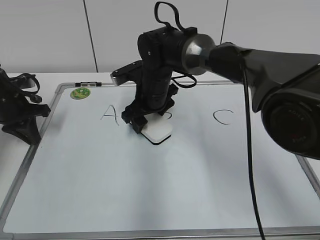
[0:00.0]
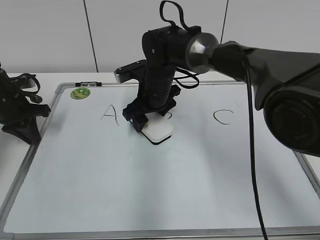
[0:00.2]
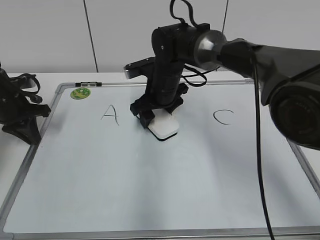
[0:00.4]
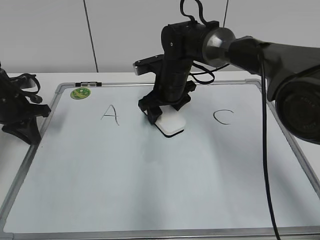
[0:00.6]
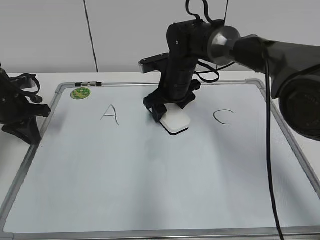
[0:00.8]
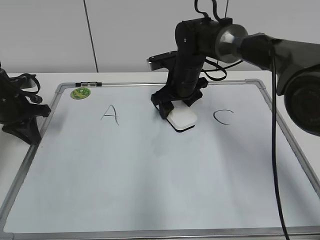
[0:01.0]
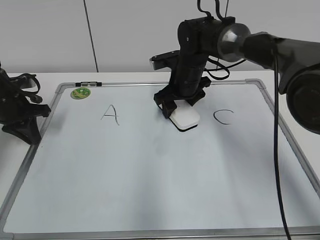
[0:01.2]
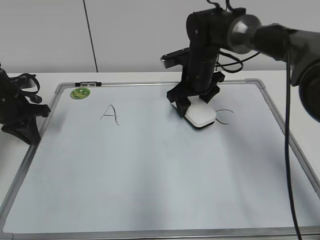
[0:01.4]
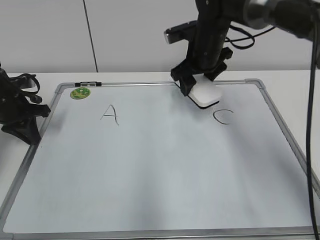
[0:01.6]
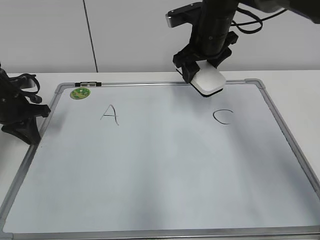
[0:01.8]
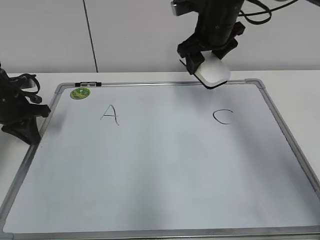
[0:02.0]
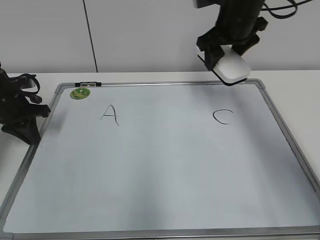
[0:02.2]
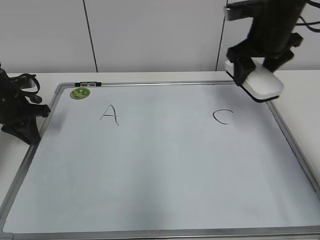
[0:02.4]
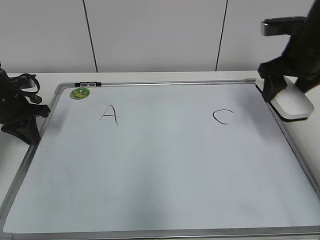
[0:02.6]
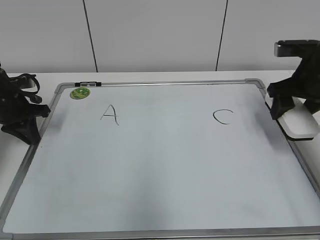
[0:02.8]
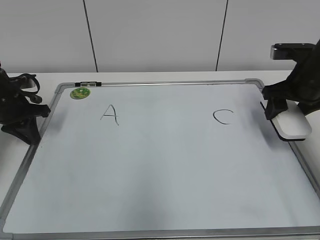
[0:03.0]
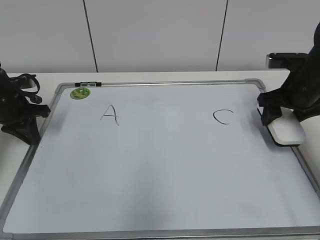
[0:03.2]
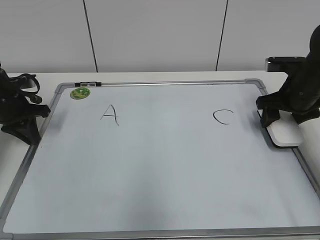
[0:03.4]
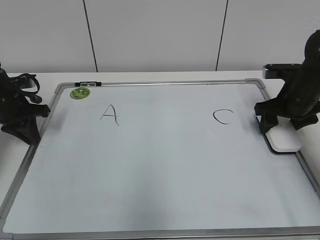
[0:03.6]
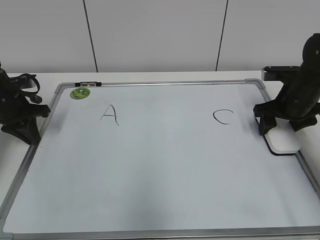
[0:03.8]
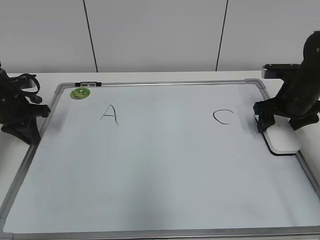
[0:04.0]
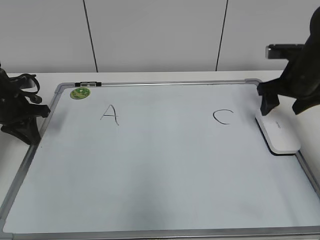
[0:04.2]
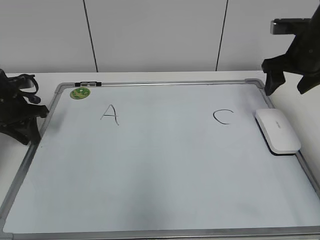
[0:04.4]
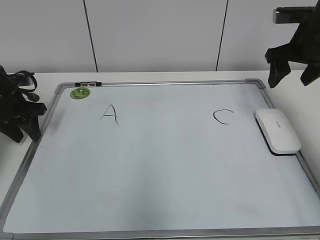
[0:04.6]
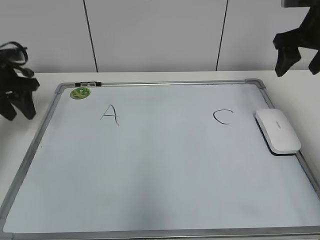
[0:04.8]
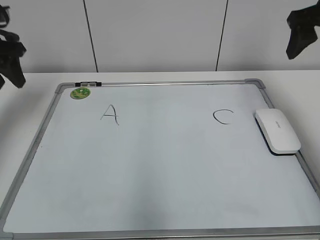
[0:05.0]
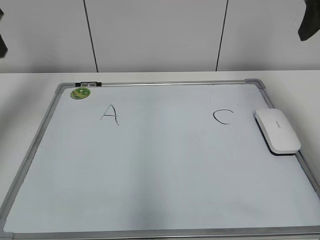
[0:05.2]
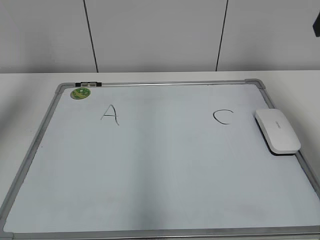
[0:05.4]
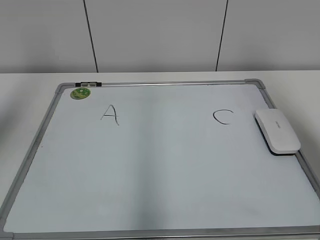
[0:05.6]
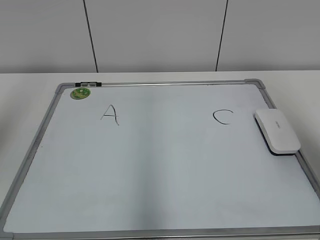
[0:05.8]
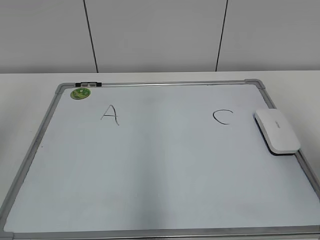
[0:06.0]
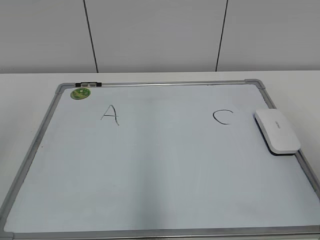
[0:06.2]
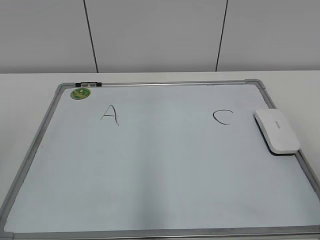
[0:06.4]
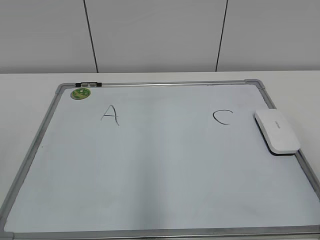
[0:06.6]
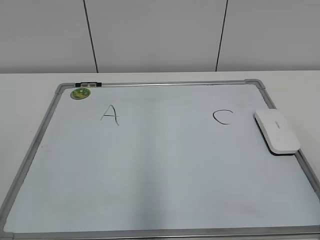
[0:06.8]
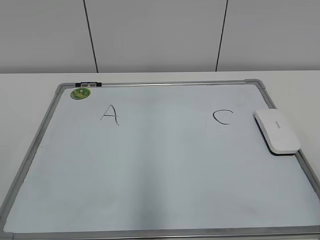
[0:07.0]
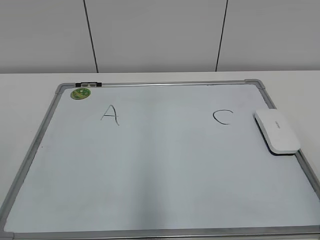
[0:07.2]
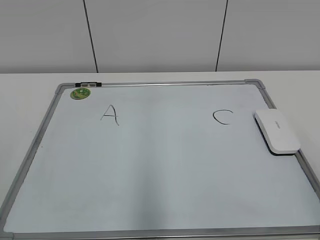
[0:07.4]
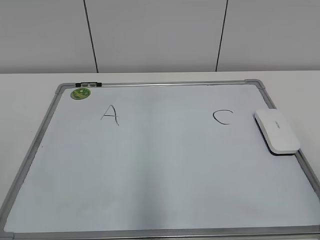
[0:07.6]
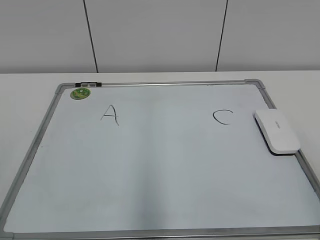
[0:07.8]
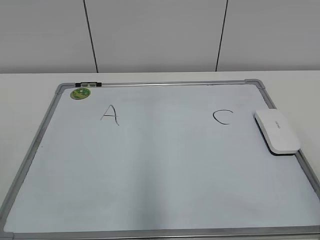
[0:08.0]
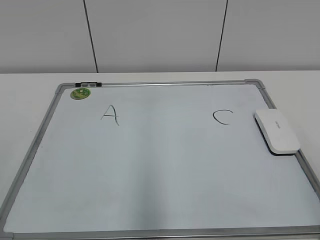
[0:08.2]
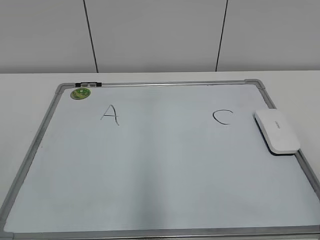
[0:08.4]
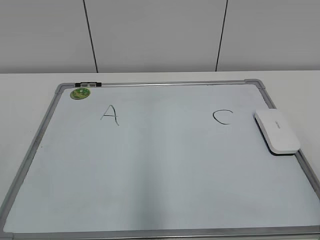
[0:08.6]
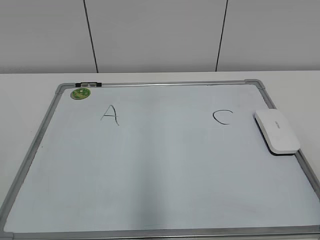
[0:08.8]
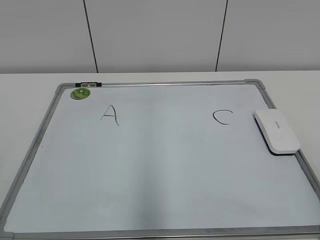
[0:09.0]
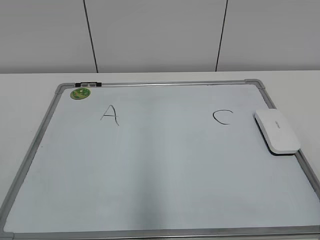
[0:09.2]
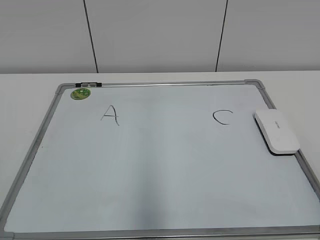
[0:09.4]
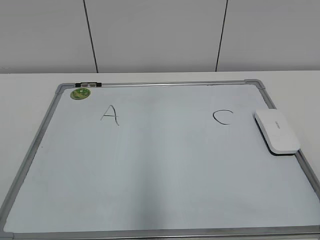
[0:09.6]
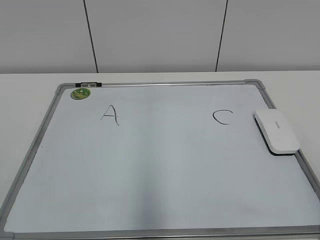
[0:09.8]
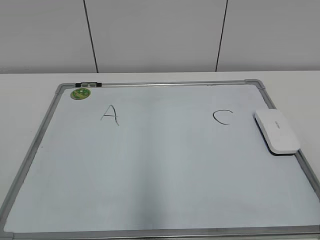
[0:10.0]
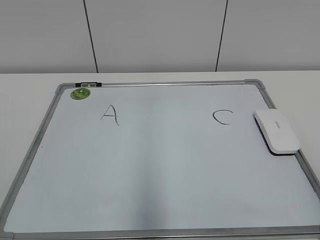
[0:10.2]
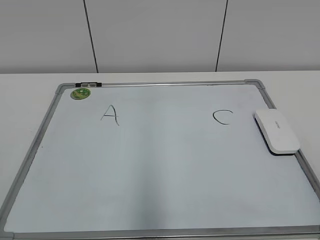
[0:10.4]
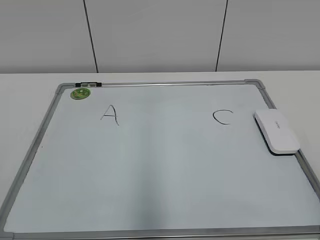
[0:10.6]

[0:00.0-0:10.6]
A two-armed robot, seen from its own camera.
Task of the whole recording: pick up the eraser on the blackboard and erase the letter "B".
Step, 0:01.4 to 0:04.0: Put down the eraser with your right hand.
0:00.0 to 0:01.6: The right gripper travels to the right and upward by about 15 cm.
0:01.6 to 0:03.0: The right gripper heads to the right and backward, covering roughly 20 cm.
0:03.0 to 0:04.6: The left gripper opens up. The right gripper travels upward by roughly 5 cm.
0:04.6 to 0:06.0: The left gripper heads upward and backward, covering approximately 40 cm. Meanwhile the right gripper is displaced backward and upward by roughly 30 cm.
0:06.0 to 0:07.6: The right gripper moves downward and backward, some 20 cm.

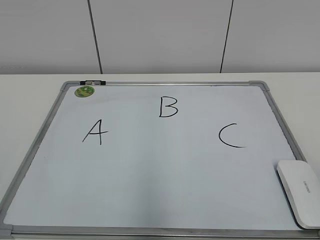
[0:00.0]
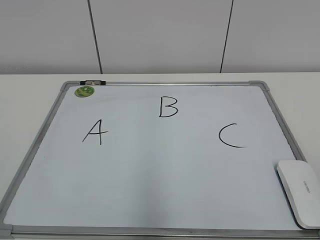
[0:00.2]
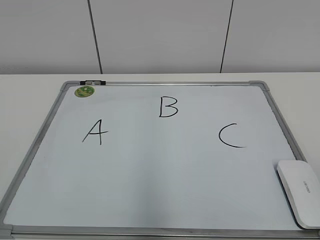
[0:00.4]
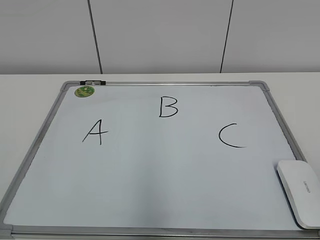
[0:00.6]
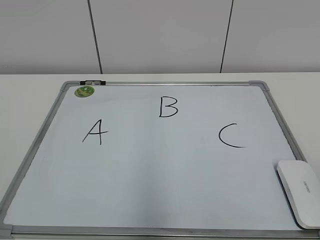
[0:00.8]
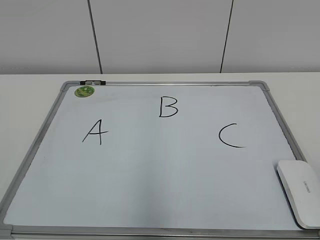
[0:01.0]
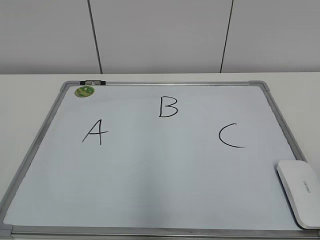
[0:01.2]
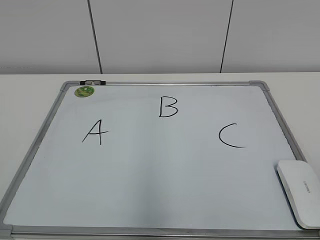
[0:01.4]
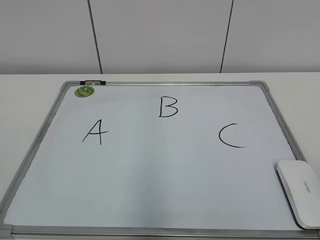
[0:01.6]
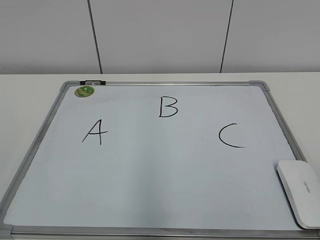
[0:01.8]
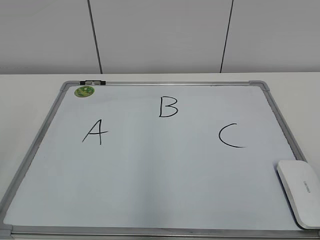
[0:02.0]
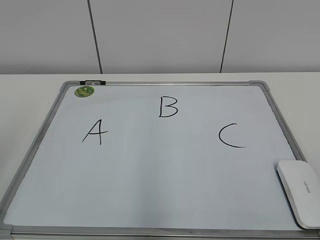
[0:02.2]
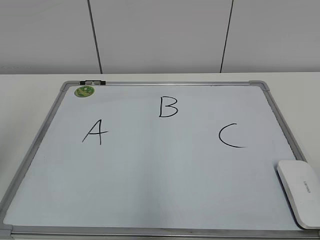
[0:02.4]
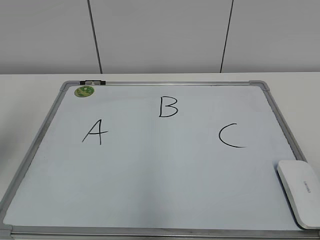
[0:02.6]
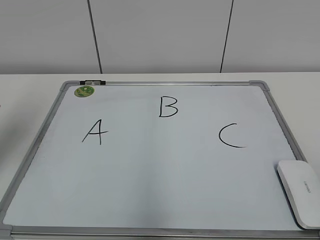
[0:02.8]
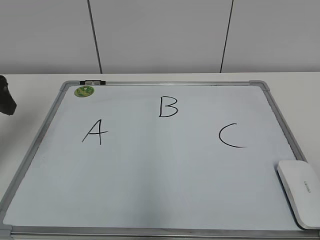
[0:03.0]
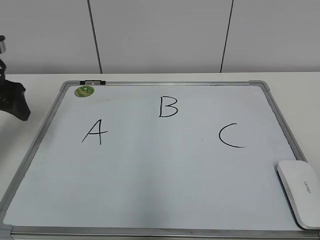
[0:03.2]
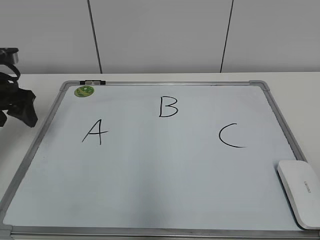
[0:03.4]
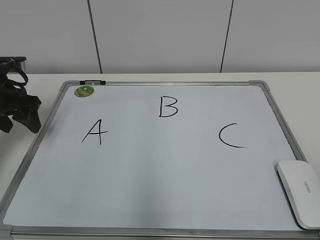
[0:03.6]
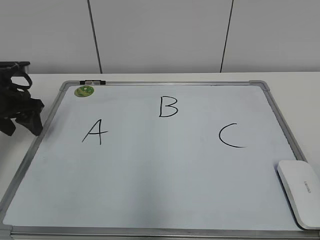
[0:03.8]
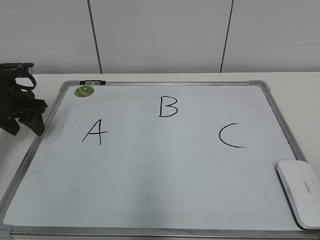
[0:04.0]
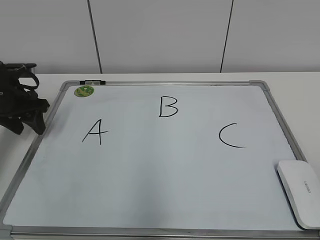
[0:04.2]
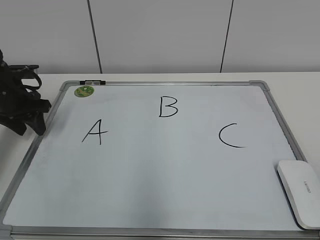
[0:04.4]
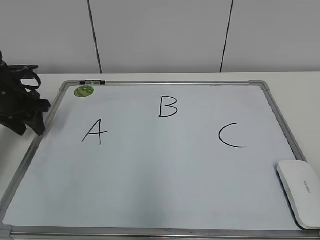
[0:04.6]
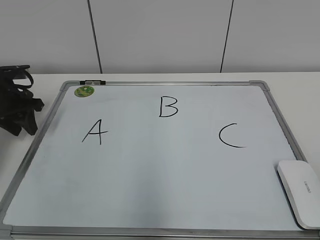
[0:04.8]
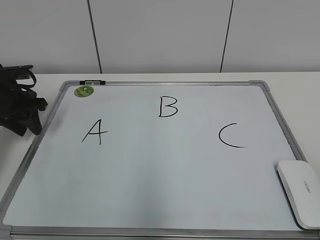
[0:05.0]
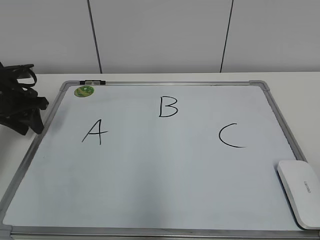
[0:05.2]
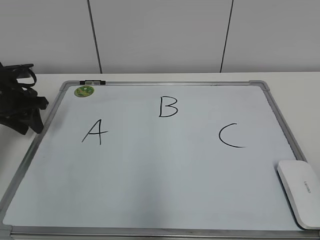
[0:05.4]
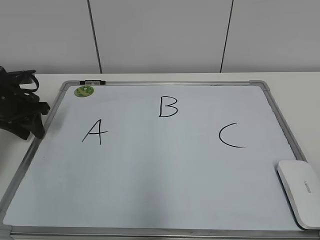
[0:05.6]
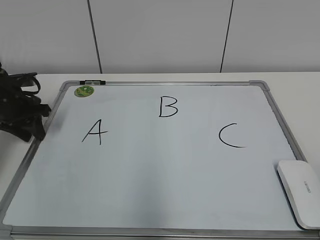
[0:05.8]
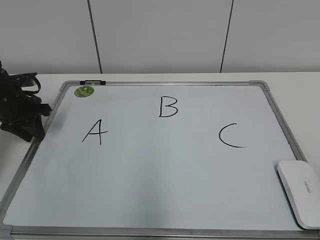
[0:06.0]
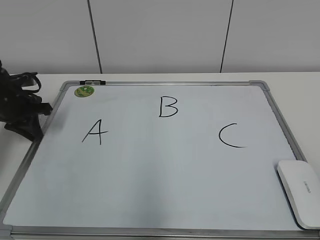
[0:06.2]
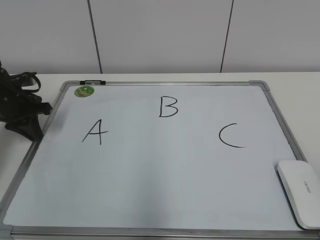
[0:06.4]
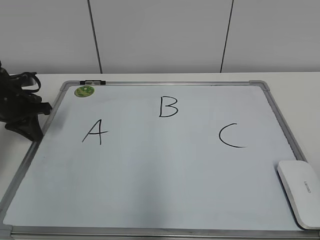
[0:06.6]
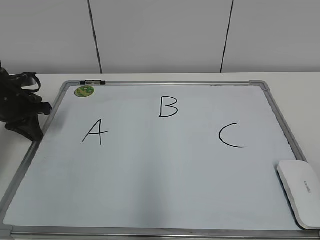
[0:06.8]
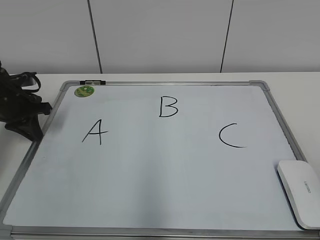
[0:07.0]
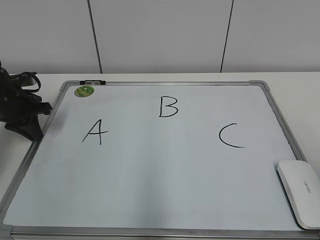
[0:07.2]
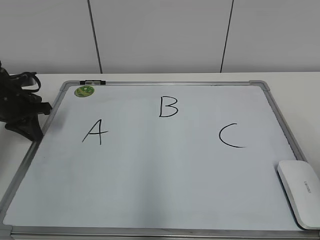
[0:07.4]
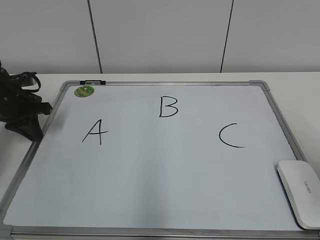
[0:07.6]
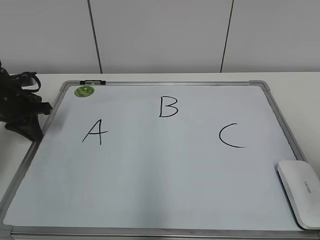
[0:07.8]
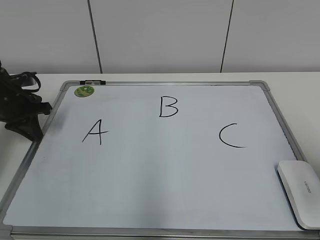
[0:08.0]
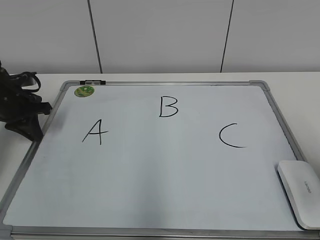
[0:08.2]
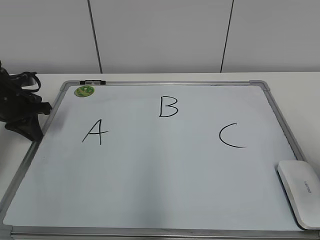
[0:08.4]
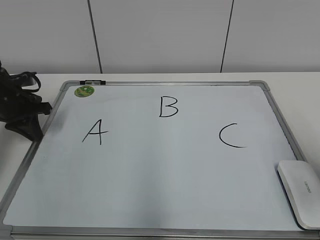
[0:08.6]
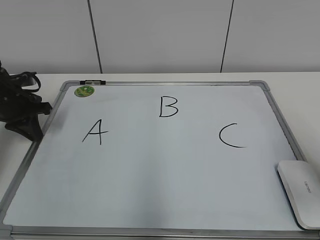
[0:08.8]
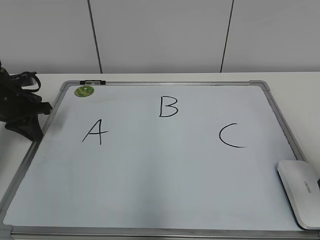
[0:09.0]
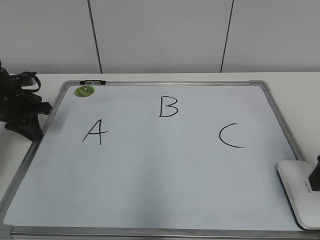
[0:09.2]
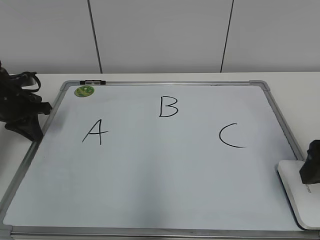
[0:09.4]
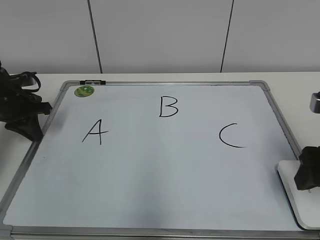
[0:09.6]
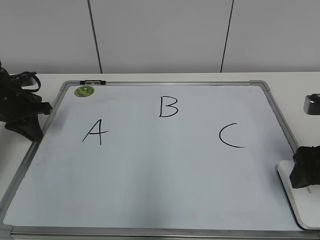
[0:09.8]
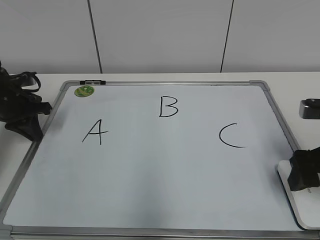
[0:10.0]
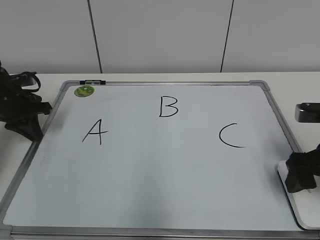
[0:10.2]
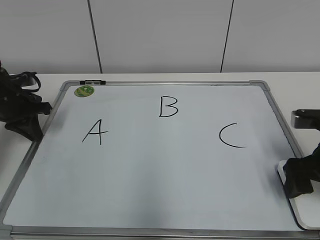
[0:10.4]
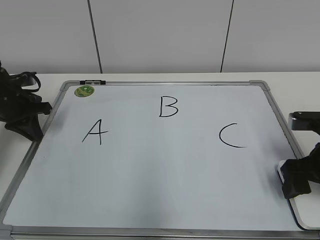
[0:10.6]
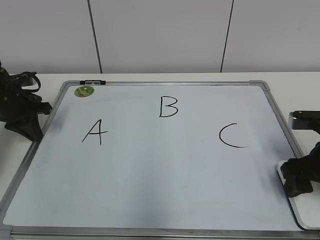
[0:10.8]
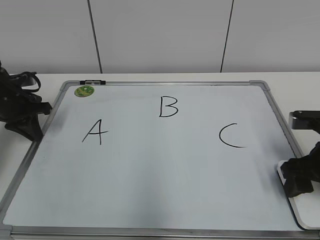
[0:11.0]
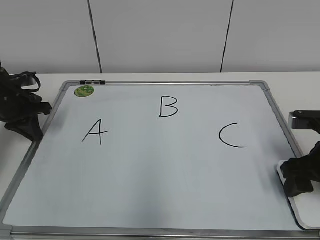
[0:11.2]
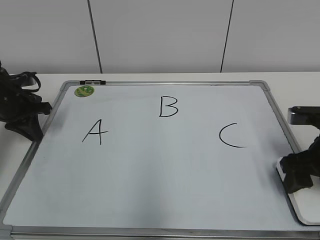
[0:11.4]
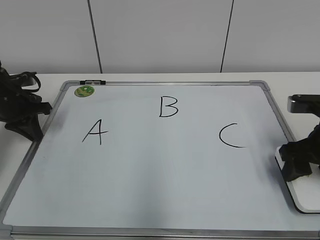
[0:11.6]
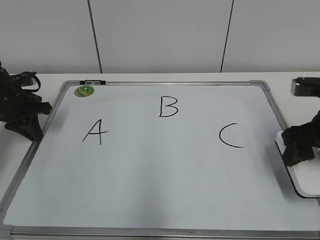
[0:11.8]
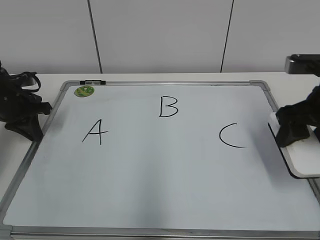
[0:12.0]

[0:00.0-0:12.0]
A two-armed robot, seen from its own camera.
Task of the whole recording: pick up the eraser on the blackboard and erase the letter "B".
Step, 0:00.0 to 0:06.2: Hold the drawing board steady with your left hand.
Step, 0:06.4 to 0:11.0: Grab the eraser with your right hand.
0:01.6 to 0:03.0: The left gripper shifts some 30 cm forward.
0:03.0 to 0:04.4: The left gripper heads downward and forward, covering some 15 cm.
0:04.4 to 0:06.0: The grippers move only a little.
0:07.6 to 0:09.0: The right gripper shifts by approximately 5 cm.
0:09.0 to 0:10.4: The right gripper shifts approximately 10 cm downward and forward, and opens.
0:10.4 to 0:12.0: The right gripper shifts some 10 cm upward, and closes.
